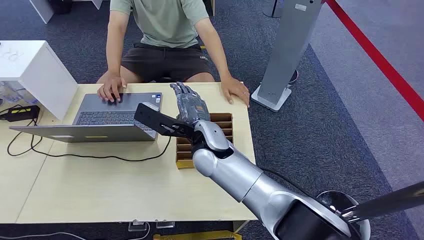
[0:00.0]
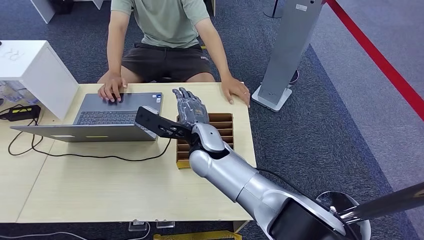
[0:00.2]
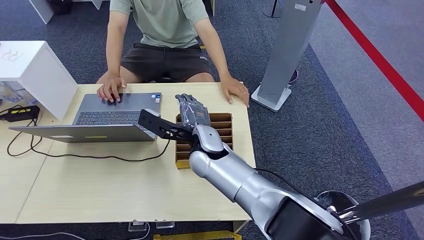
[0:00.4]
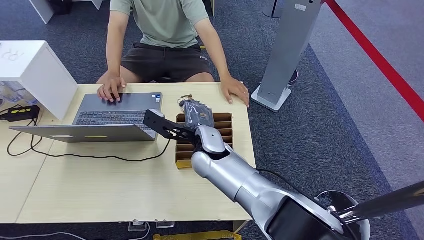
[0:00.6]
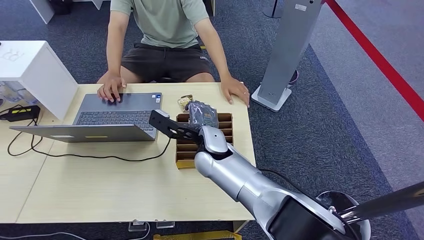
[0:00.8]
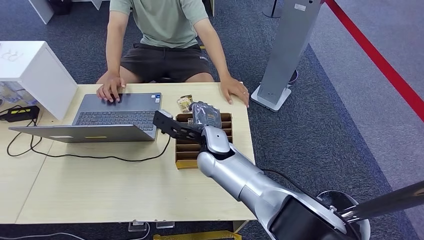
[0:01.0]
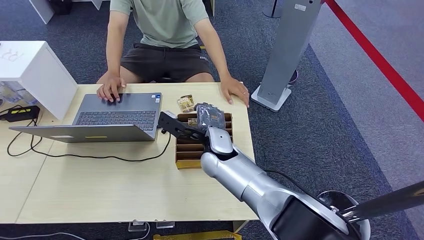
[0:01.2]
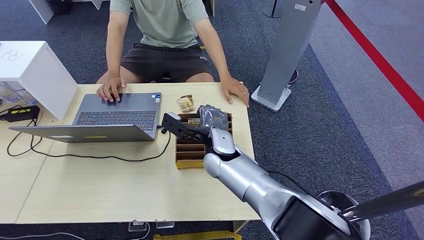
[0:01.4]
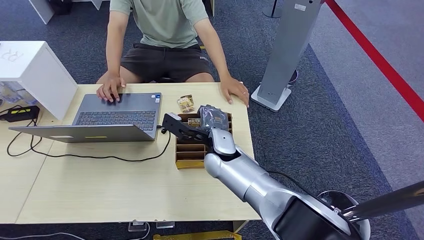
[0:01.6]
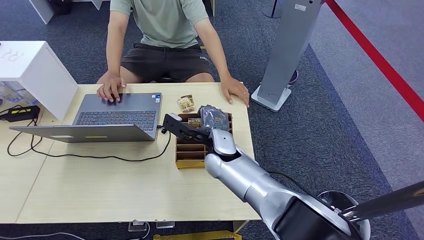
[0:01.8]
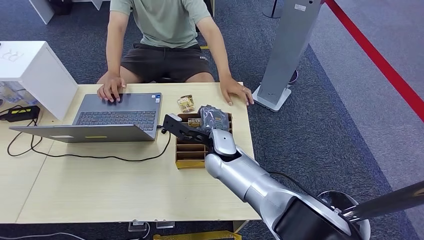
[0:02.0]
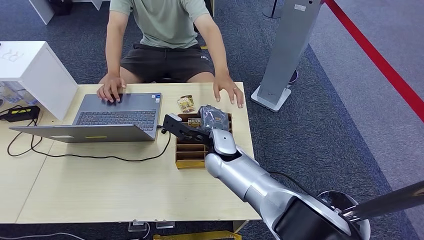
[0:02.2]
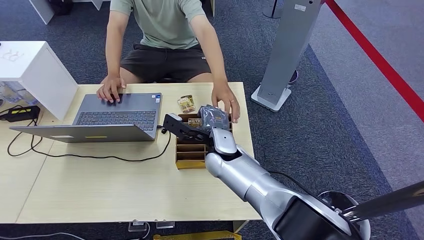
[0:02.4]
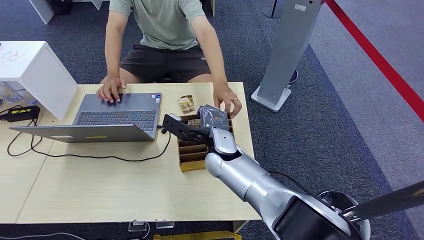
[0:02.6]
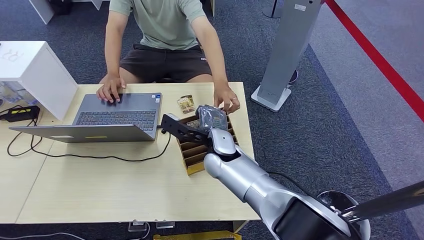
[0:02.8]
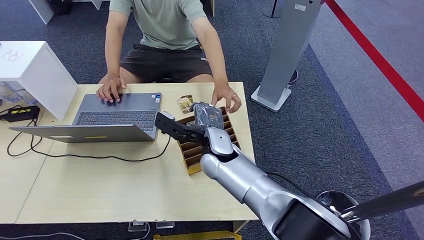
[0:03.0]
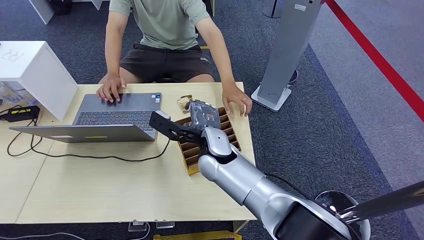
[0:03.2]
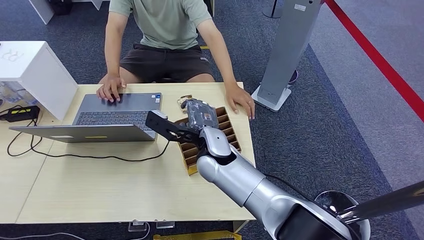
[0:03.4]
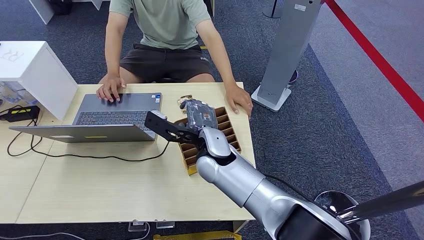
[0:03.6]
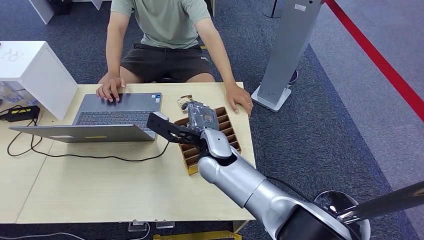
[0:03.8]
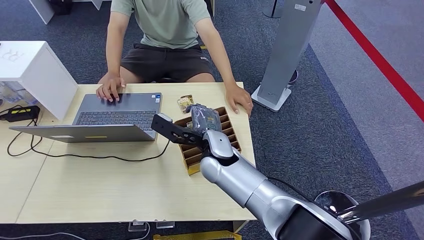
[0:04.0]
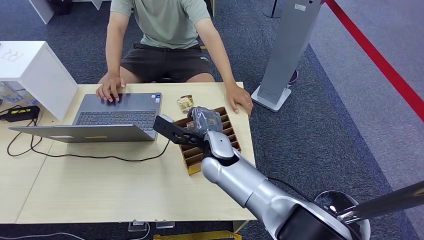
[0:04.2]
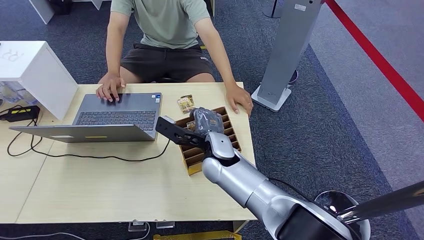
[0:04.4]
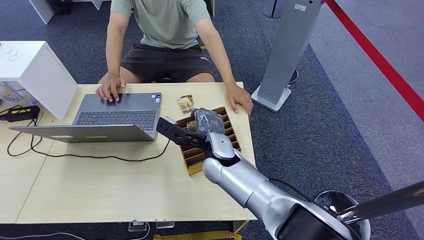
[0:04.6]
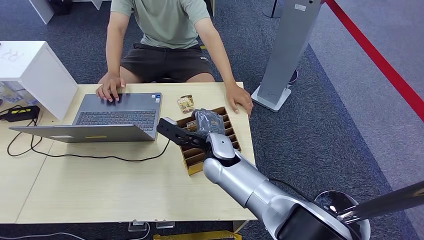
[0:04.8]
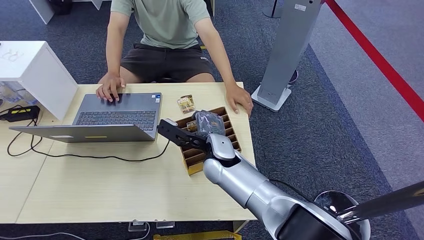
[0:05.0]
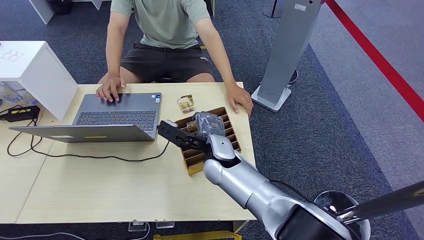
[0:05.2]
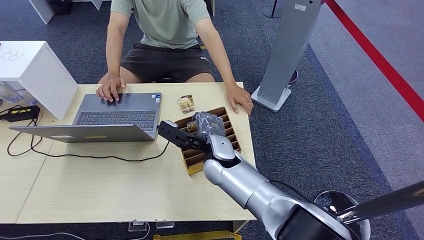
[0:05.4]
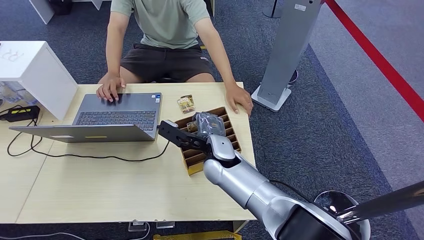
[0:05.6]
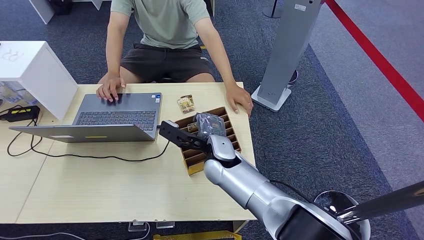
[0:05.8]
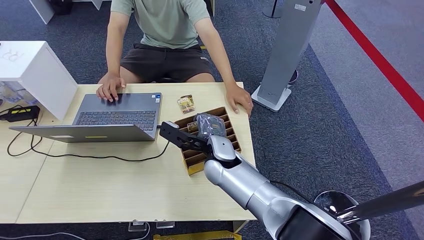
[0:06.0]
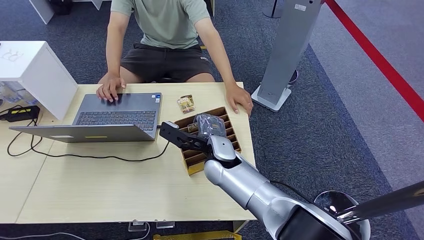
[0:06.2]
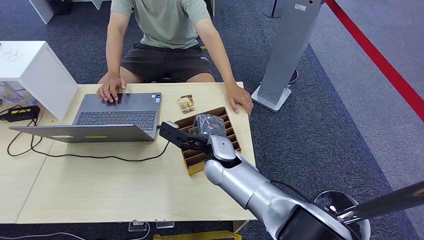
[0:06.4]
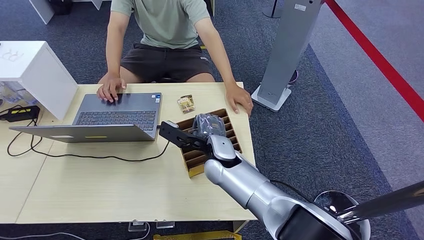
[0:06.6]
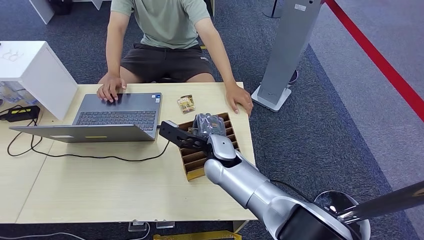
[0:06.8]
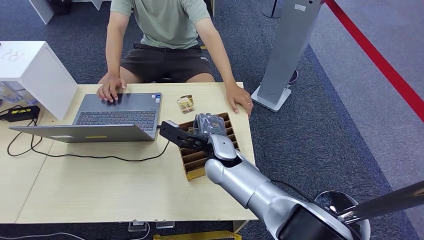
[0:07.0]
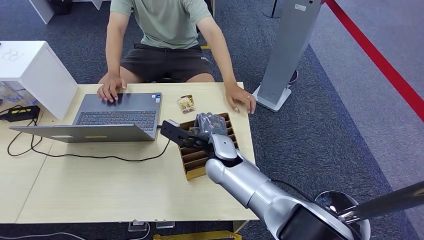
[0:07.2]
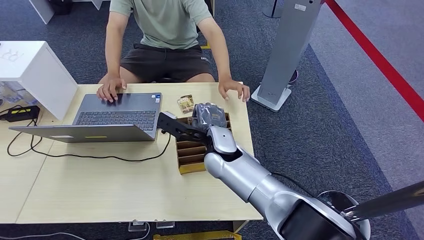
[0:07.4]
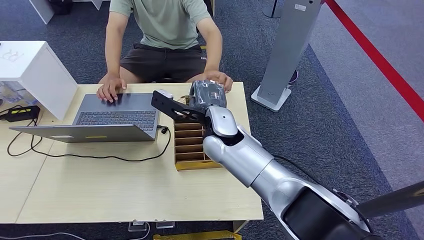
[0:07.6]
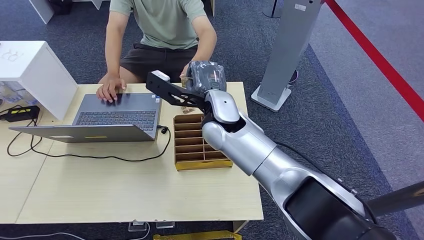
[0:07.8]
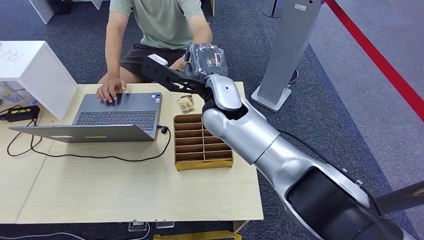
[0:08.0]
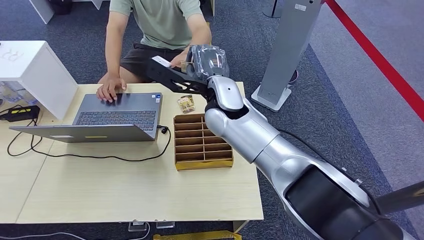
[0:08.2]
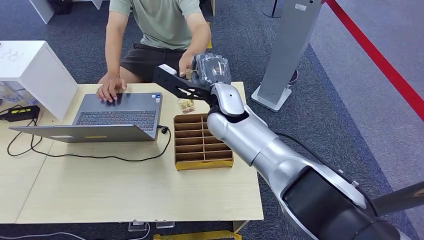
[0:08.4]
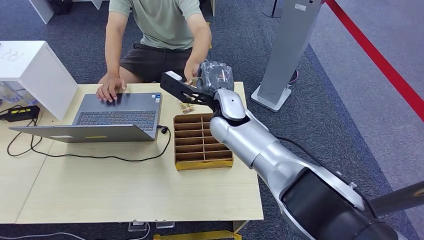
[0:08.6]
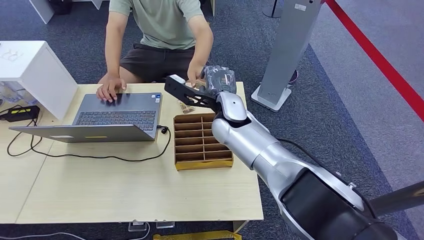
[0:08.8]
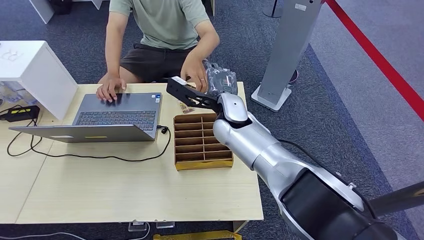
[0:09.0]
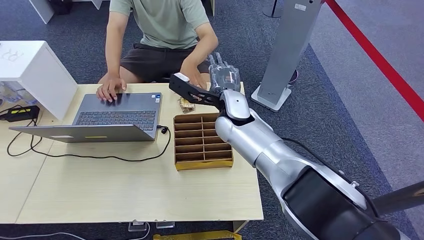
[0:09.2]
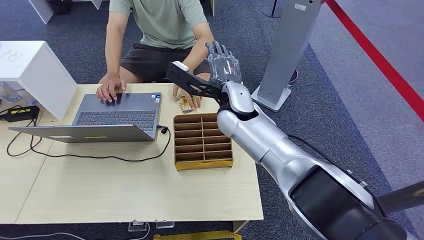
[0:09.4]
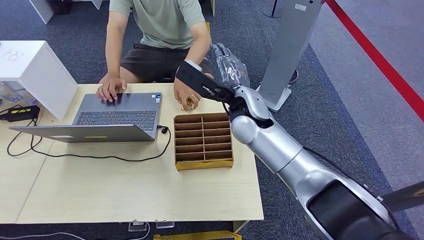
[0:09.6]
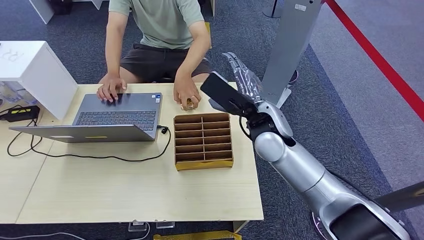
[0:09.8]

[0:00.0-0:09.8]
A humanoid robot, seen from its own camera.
Task of the whole recording: Pick up the card and hand it over to the target person.
Step, 0:00.0 to 0:08.2: Pick up the key card from the card box.
Step, 0:08.4 to 0:09.8: Hand the key card to the target.
0:01.4 to 0:04.2: The hands make only small movements.
0:04.2 to 0:05.6: Both hands stay put.
0:05.6 to 0:07.0: The hands make only small movements.
0:07.0 to 0:08.4: The right hand heads upward and forward, covering about 10 cm.
0:08.4 to 0:09.8: The right hand is displaced to the right and backward by about 25 cm.
